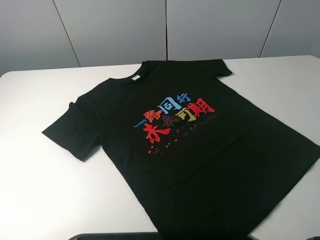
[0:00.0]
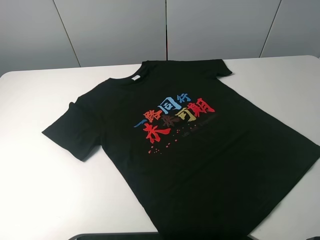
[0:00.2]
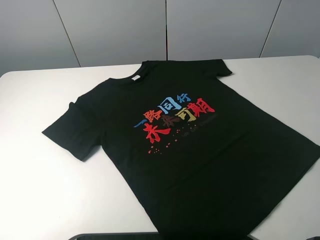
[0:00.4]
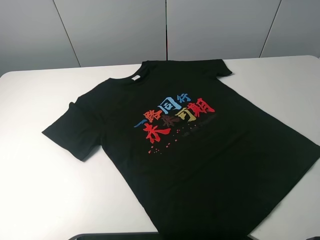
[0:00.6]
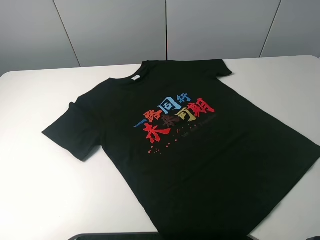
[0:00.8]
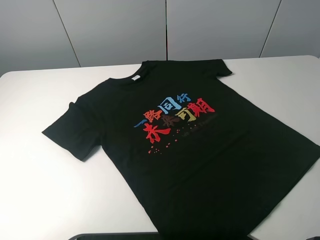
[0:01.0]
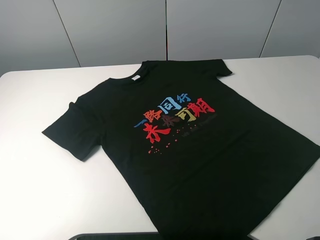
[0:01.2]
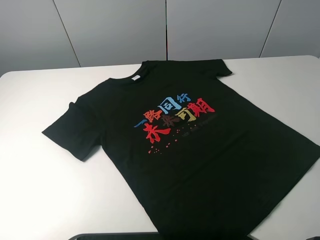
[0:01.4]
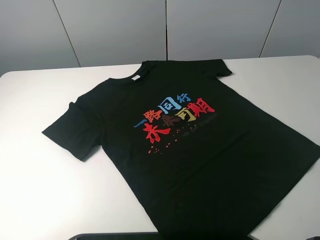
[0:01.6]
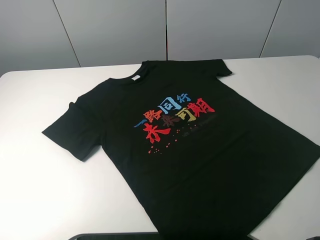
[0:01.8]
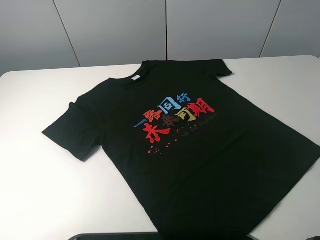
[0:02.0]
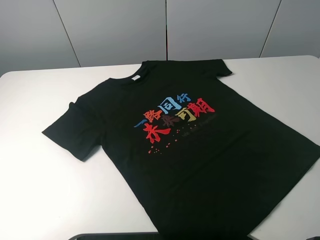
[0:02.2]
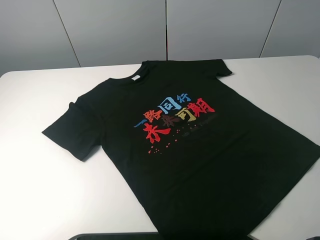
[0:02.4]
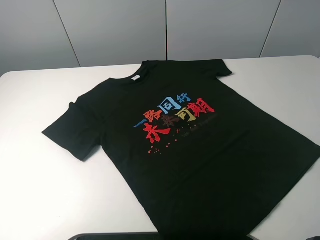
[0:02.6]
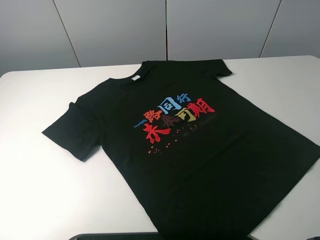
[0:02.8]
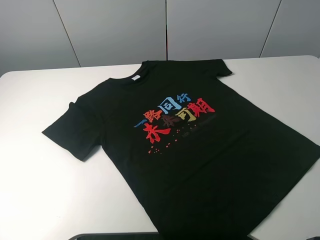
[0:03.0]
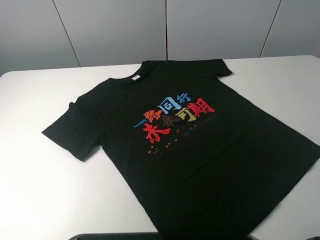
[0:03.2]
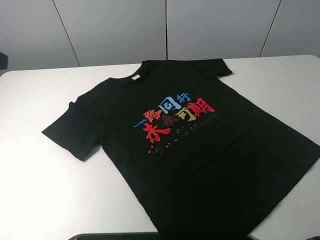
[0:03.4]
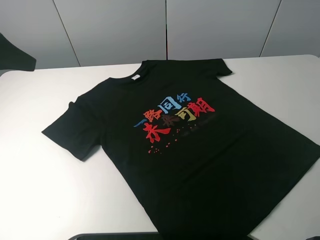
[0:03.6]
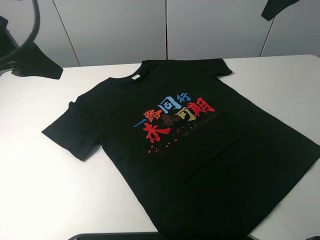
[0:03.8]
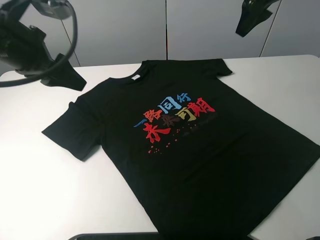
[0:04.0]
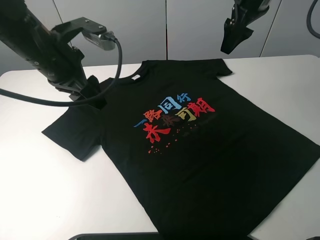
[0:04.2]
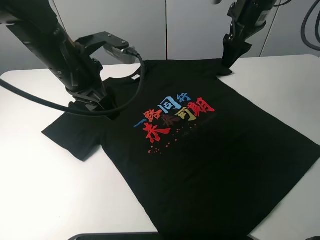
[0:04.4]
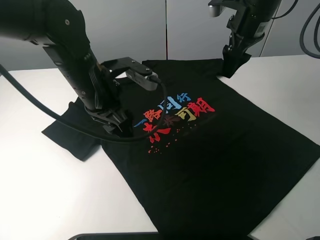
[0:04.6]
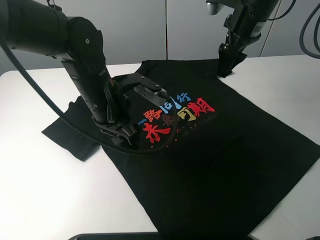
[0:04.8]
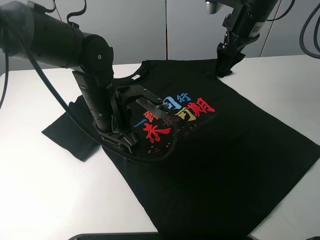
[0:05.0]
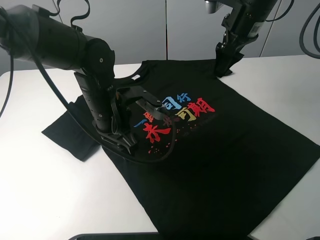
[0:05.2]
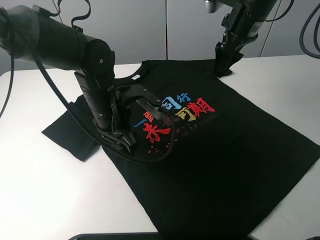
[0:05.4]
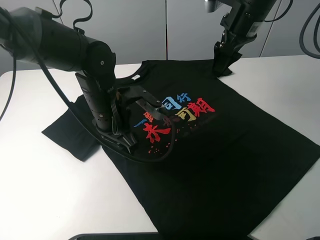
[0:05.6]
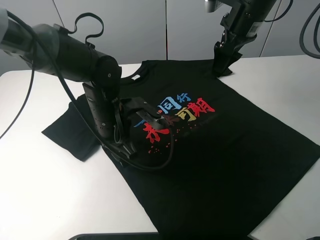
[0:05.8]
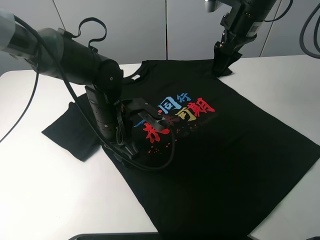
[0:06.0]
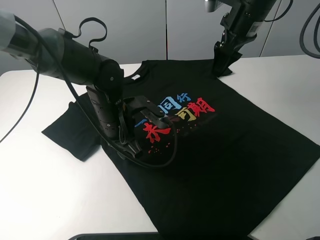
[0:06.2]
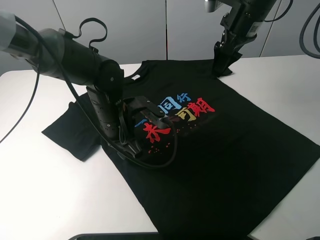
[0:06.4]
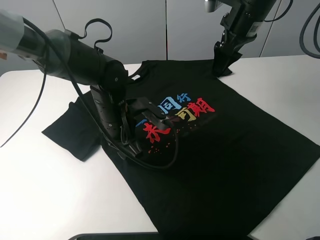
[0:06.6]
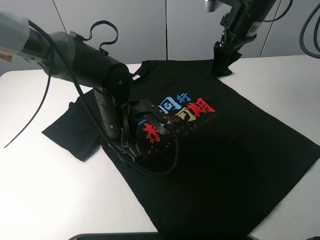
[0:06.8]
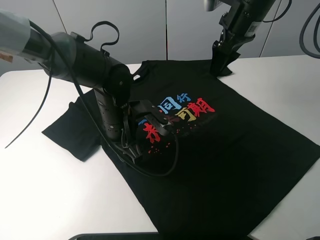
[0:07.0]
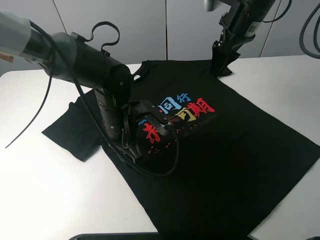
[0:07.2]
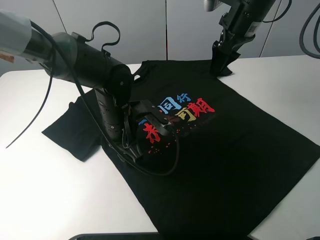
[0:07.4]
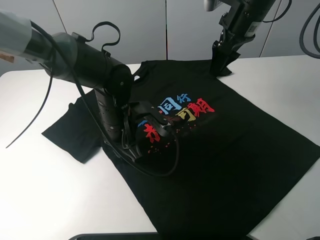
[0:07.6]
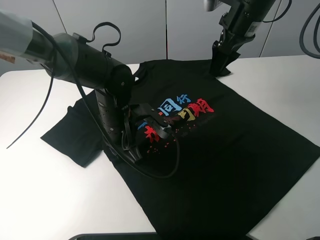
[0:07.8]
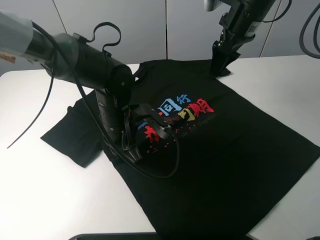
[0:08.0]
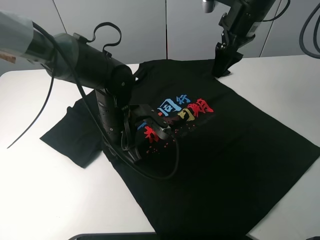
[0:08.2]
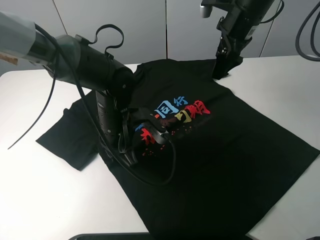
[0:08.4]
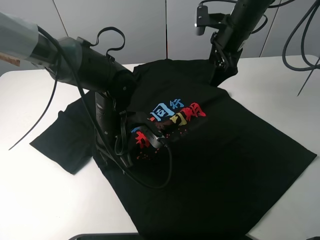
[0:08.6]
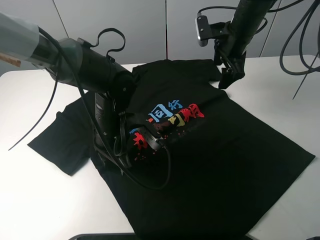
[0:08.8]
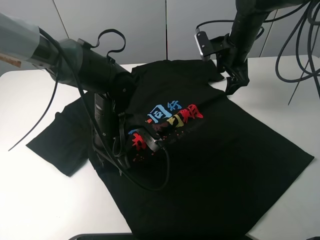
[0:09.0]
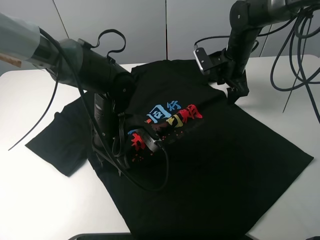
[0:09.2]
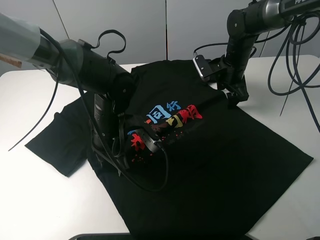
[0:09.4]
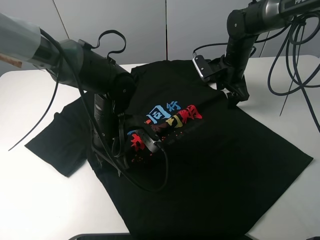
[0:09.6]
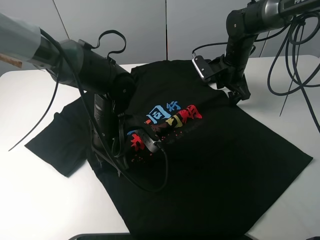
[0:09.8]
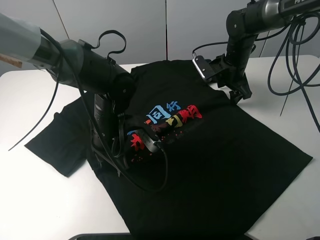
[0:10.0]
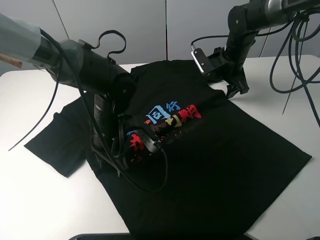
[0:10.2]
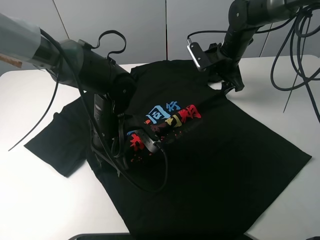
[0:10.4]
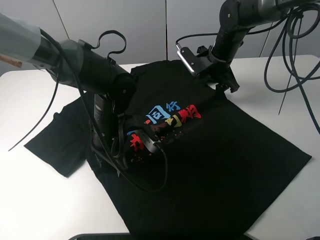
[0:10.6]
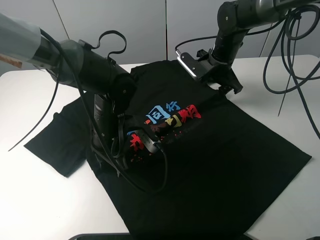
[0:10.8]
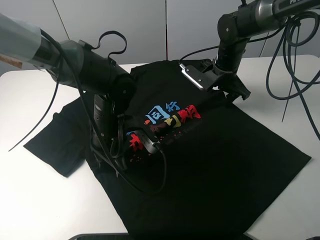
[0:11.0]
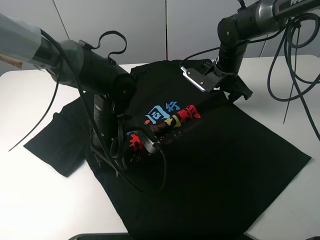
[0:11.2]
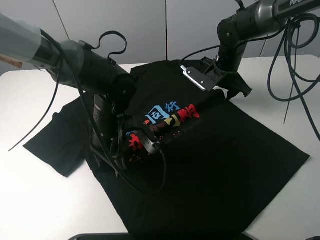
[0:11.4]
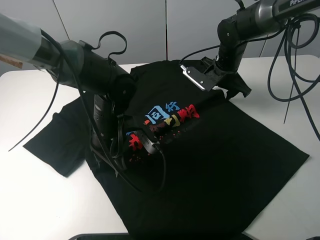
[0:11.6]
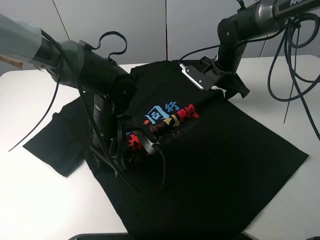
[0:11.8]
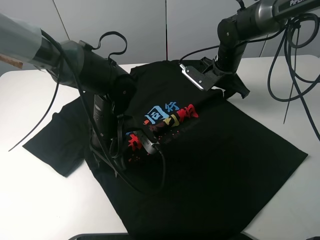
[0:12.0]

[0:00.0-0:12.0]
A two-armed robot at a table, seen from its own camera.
Task of the whole recording: fold the clothes on the table.
0:00.0 to 0:01.6: Both grippers stay put.
0:03.0 to 0:04.4: The left gripper heads to the right, forward and downward, covering some 30 cm; the right gripper is displaced forward, downward and to the left by approximately 35 cm.
0:04.4 to 0:06.0: The left gripper is displaced downward by some 10 cm.
0:06.0 to 0:07.6: The left gripper closes up.
0:07.6 to 0:09.0: The right gripper goes some 10 cm downward.
0:09.0 to 0:10.4: The grippers make only small movements.

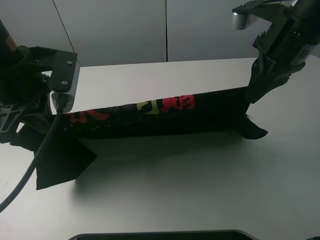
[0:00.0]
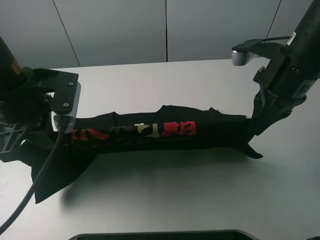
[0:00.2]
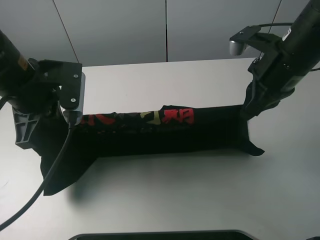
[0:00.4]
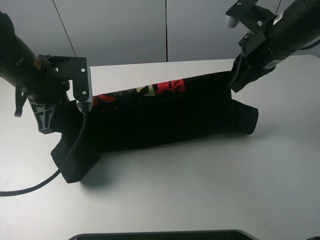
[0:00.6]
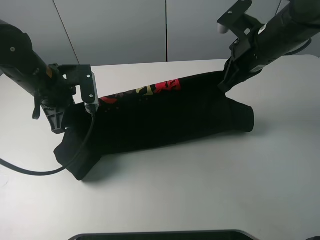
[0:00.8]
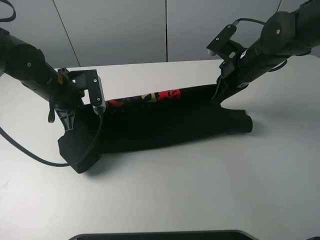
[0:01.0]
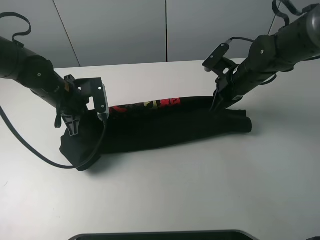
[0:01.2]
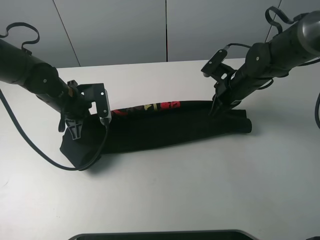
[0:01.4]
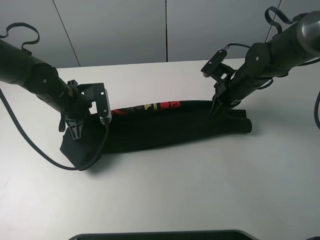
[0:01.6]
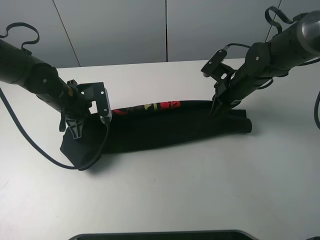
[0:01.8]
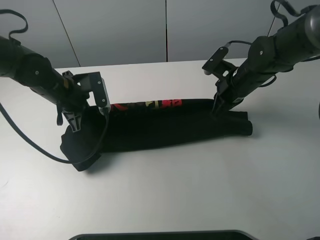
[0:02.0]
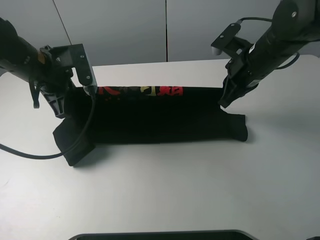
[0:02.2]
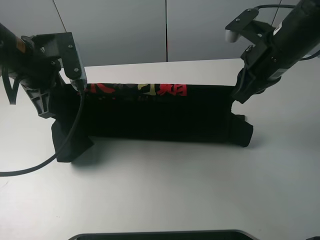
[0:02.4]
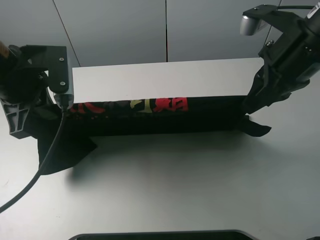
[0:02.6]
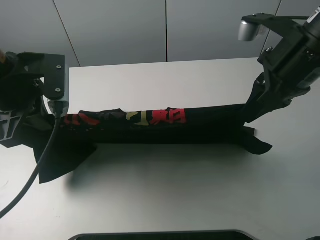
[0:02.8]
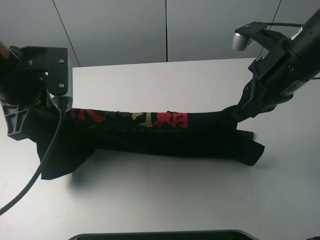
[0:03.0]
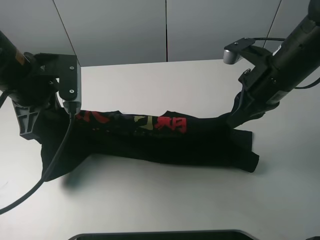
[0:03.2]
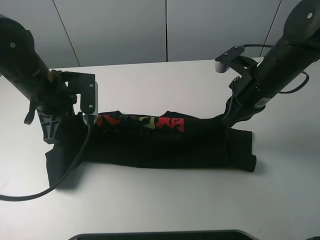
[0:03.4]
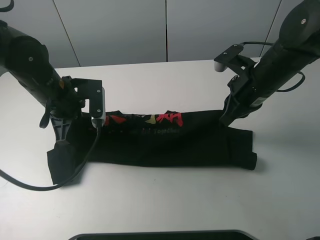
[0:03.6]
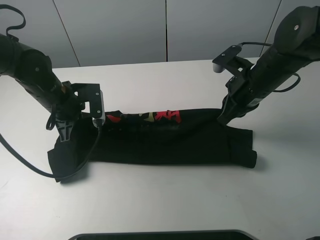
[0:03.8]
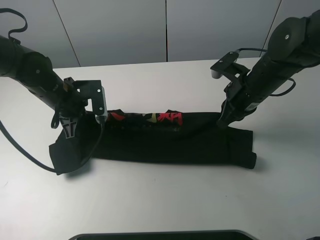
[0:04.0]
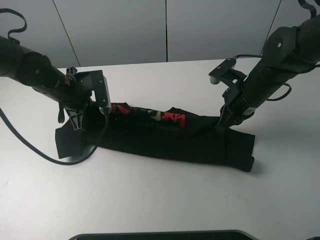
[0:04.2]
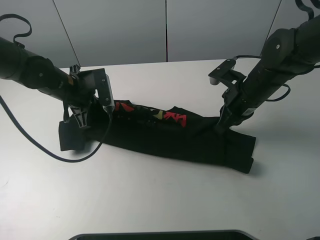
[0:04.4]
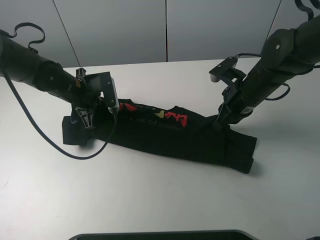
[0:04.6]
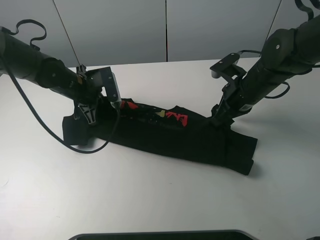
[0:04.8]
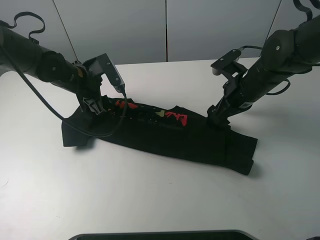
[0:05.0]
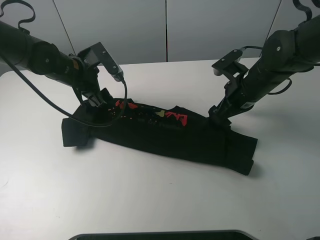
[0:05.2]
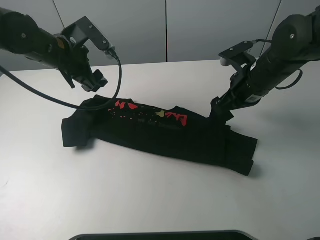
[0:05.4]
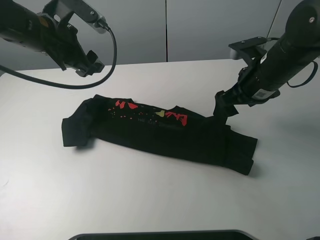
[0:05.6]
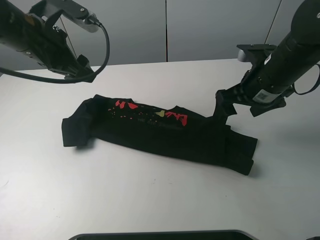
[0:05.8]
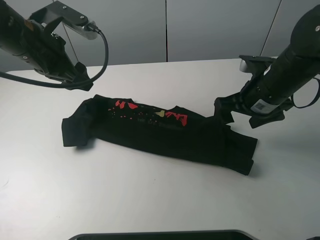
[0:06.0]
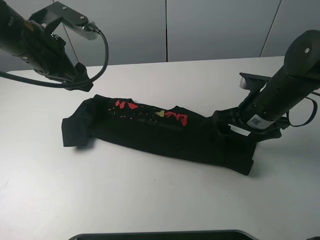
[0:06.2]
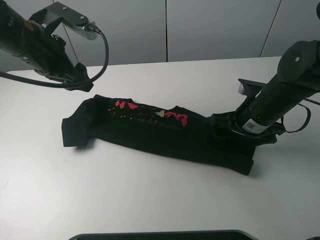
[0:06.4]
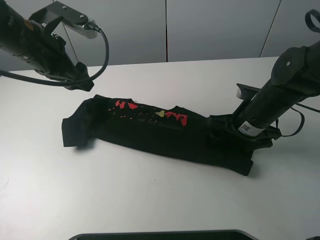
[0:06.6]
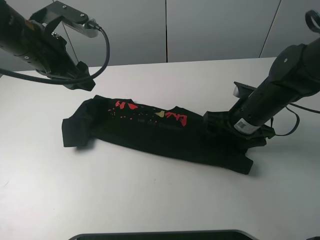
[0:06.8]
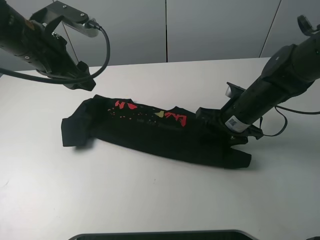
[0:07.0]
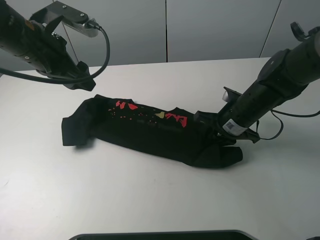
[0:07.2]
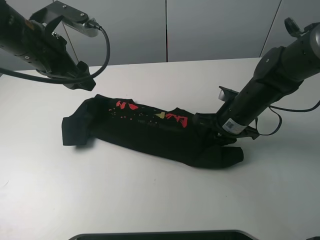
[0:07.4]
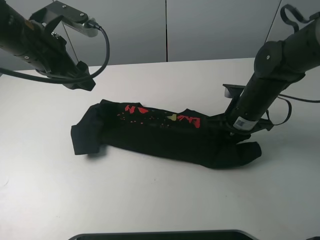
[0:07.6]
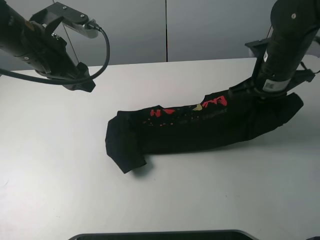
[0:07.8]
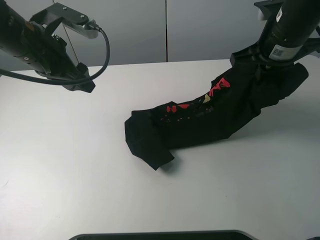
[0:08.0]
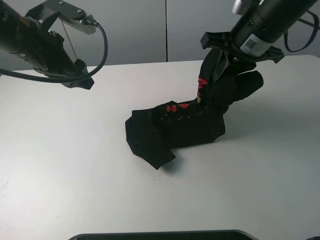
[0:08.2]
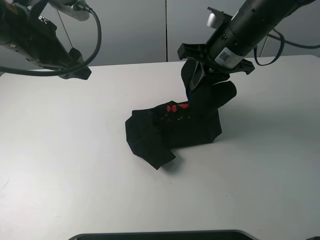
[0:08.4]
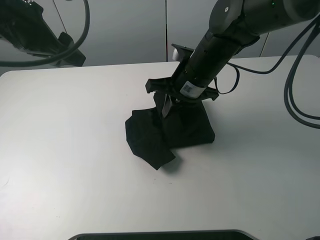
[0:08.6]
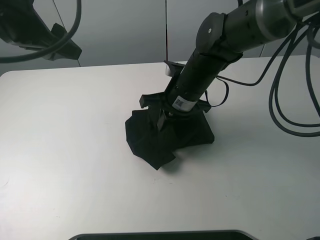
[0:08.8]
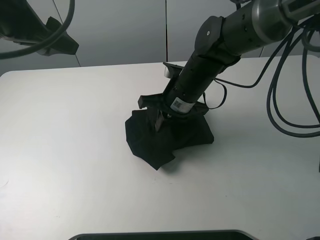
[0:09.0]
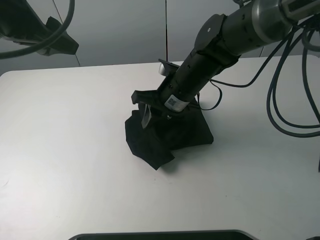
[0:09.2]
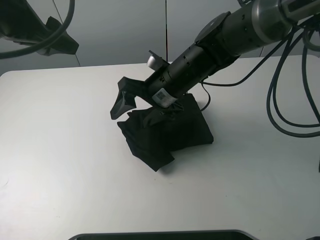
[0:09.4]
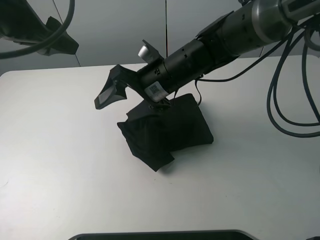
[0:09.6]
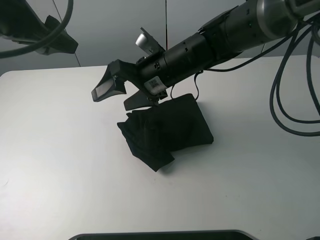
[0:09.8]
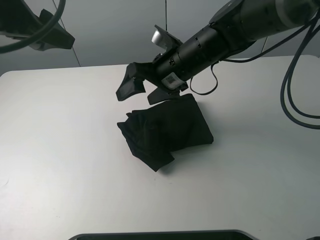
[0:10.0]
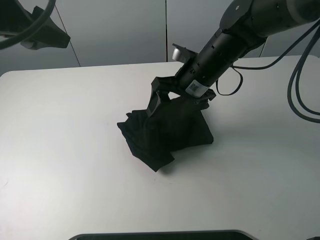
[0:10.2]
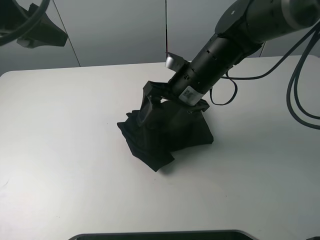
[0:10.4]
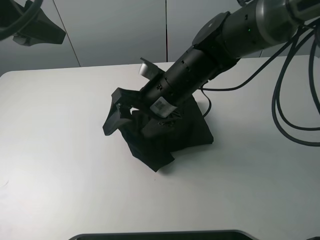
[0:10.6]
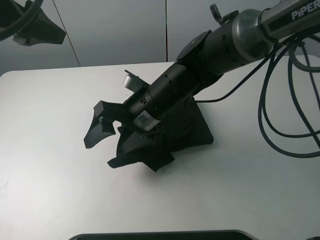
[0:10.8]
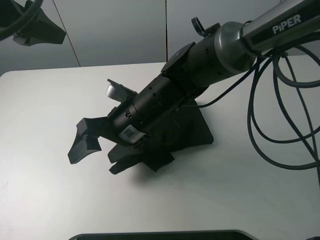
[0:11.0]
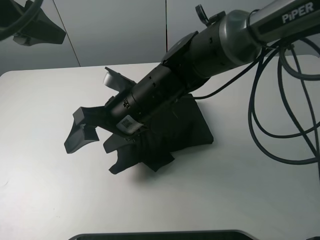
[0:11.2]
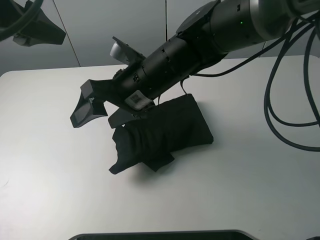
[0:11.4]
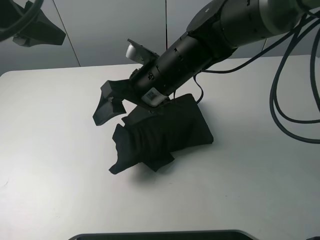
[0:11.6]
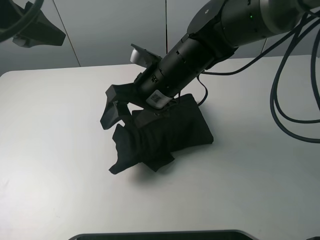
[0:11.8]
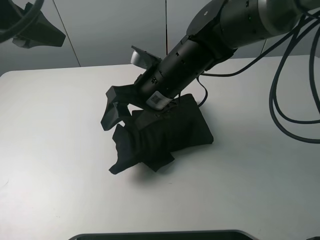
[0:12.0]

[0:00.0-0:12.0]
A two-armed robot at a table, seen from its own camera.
Task of the whole recording: fold the clothes on the table.
Step, 0:00.0 to 0:05.2: Fold the black T-shirt downward with the right gripper.
Step, 0:05.4 to 0:07.4: Grasp the black T-shirt with the right gripper.
Step, 0:07.6 to 0:11.2: Fold the black T-shirt from right to left with right gripper.
0:00.0 to 0:01.6: The two grippers go about 20 cm downward and forward.
0:01.6 to 0:03.0: The grippers both shift upward and backward by some 15 cm.
0:03.0 to 0:04.4: Both grippers travel together downward and forward, some 15 cm.
0:04.4 to 0:06.0: The left gripper heads upward, covering about 10 cm, and opens its fingers. The right gripper moves about 5 cm, and opens.
0:06.0 to 0:07.6: The right gripper shifts approximately 5 cm downward, and closes up.
0:07.6 to 0:09.0: The left gripper moves upward, about 10 cm, while the right gripper moves to the left, approximately 15 cm.
0:09.0 to 0:10.4: The right gripper opens.
0:10.4 to 0:12.0: The right gripper moves to the left, about 5 cm.
